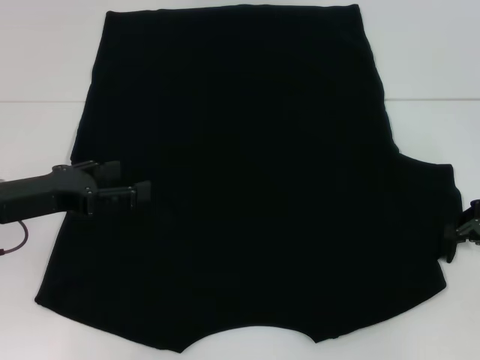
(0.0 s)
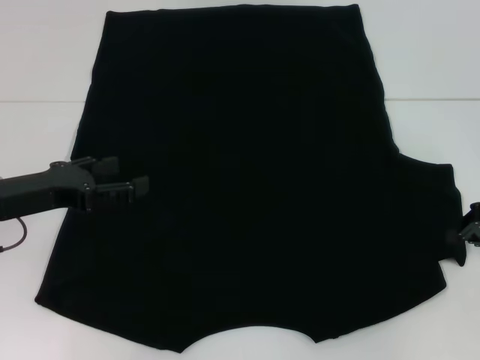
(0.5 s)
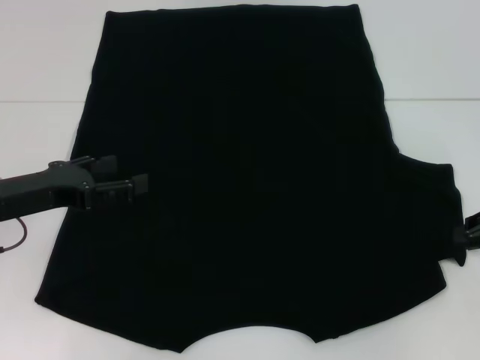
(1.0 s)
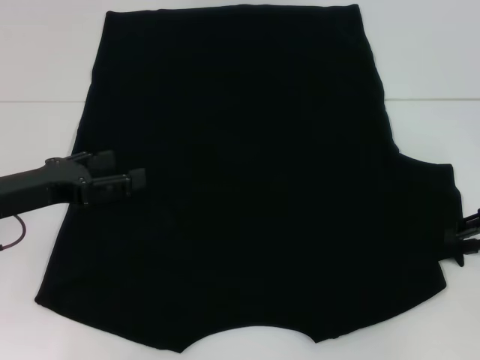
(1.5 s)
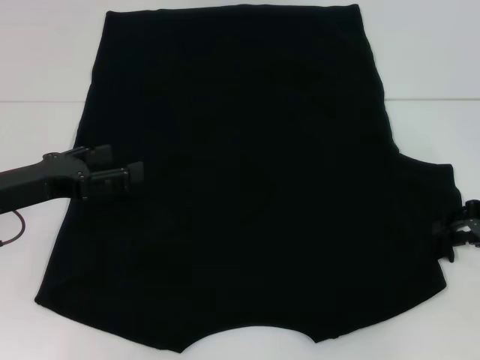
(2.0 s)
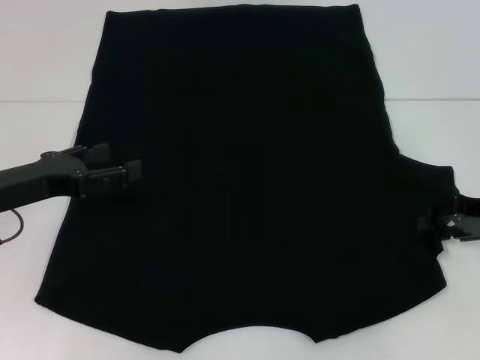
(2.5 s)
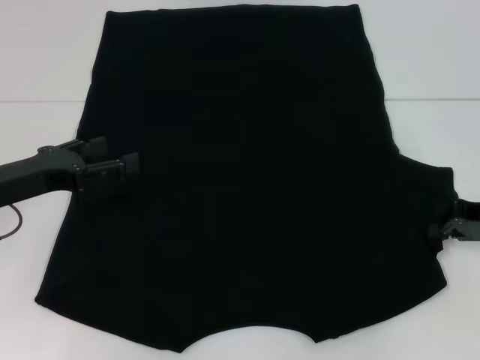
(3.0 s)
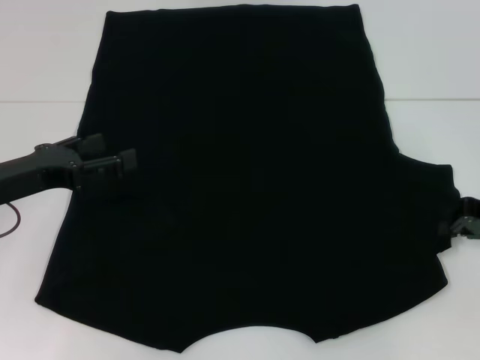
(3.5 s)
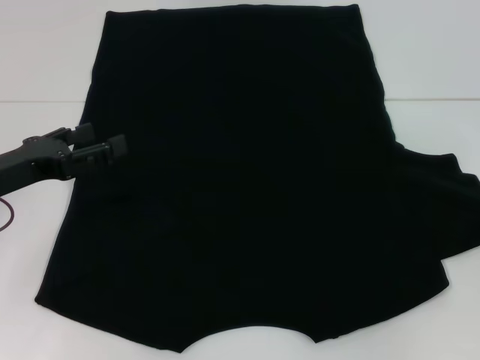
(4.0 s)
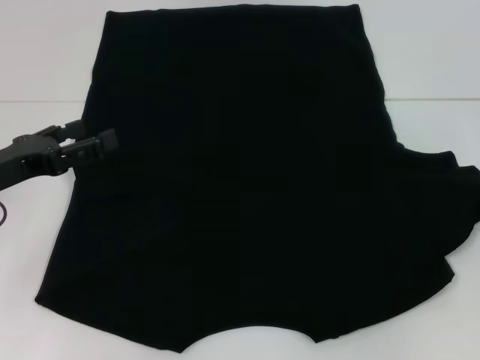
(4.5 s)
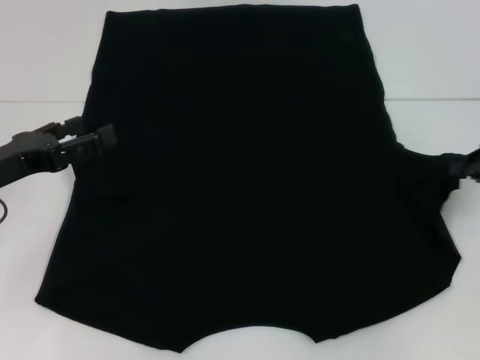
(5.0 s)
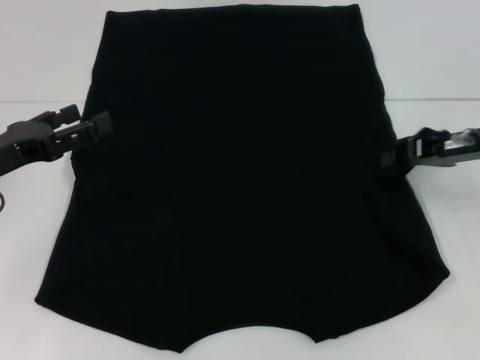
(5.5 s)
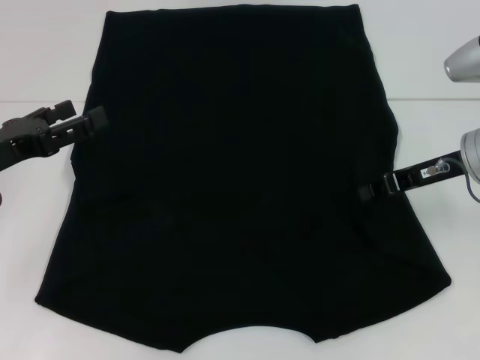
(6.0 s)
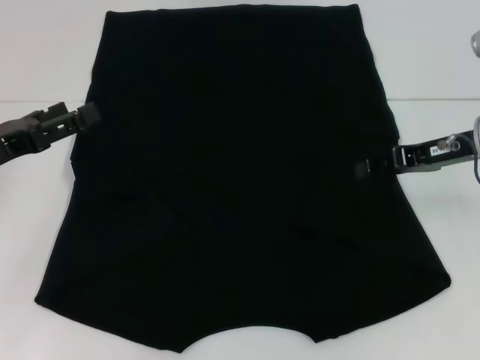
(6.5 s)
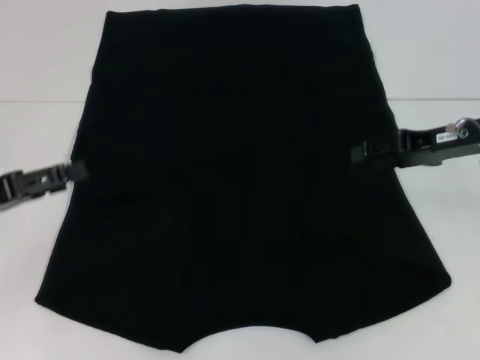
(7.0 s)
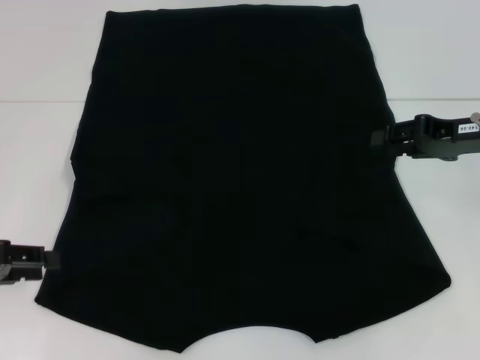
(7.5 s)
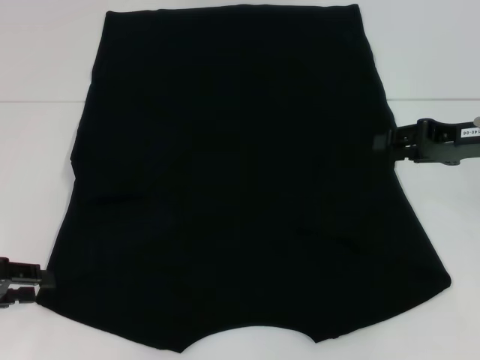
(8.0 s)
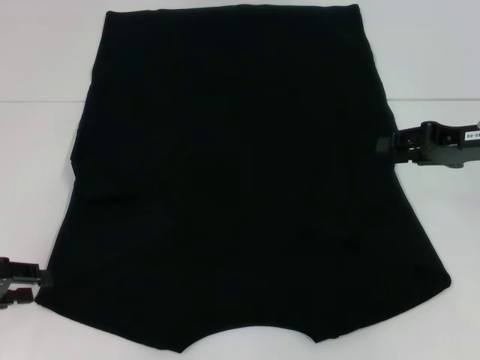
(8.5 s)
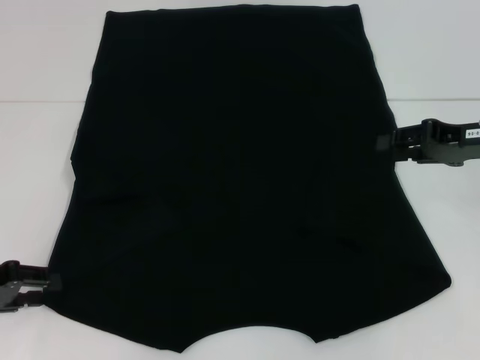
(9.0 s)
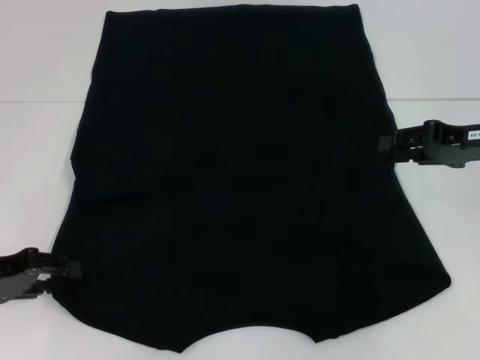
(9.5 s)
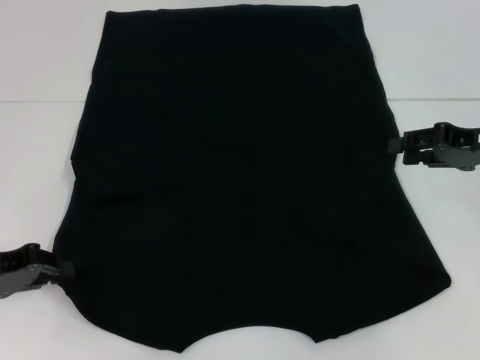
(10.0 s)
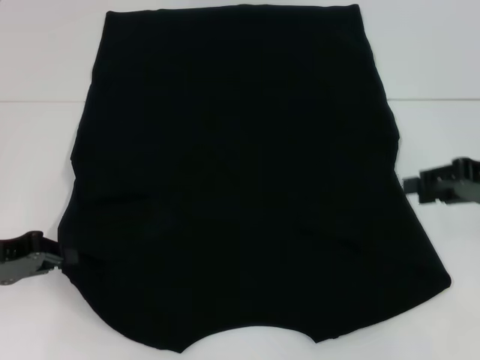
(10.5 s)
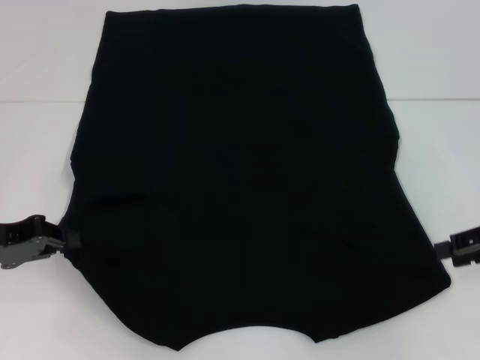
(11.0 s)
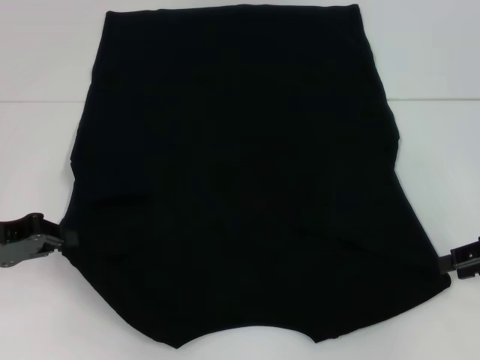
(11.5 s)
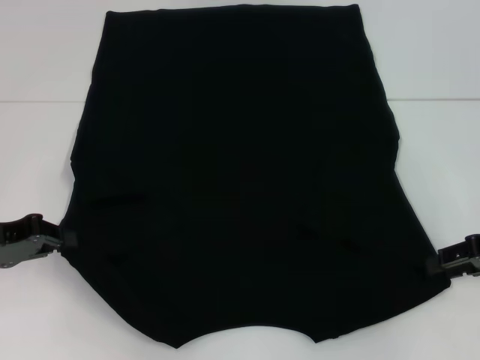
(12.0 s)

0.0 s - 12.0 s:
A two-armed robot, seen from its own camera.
Step, 0.0 s - 6.5 s: Fold the bottom right sleeve with your right hand.
Step, 7.0 s - 10.5 s: Grab the bottom left corner with your left hand.
0.0 s - 2.0 s: The grippers make only small movements.
2.0 s - 4.0 s: The right gripper closes.
4.0 s - 6.0 s: The right gripper travels to the left by about 15 cm.
6.0 s - 8.0 s: The left gripper ends up roughly 10 cm from where it was, while the right gripper opens.
8.0 s - 10.0 s: The grippers make only small movements.
10.0 s - 12.0 s: The right gripper is displaced backward by approximately 5 cm.

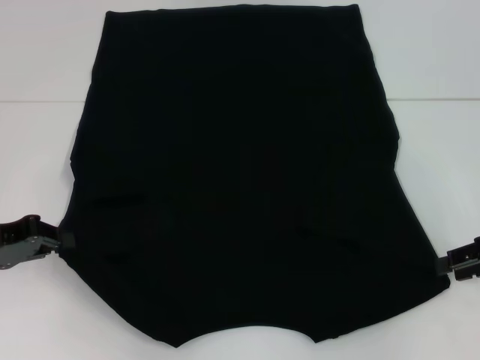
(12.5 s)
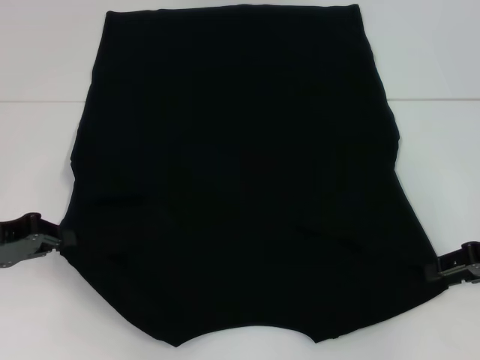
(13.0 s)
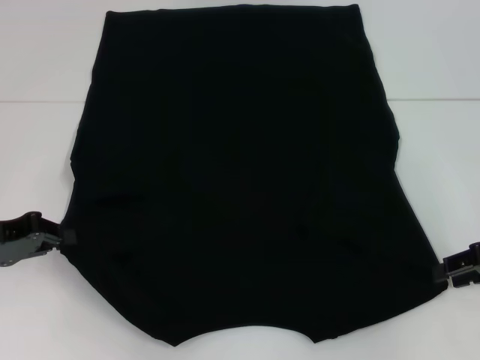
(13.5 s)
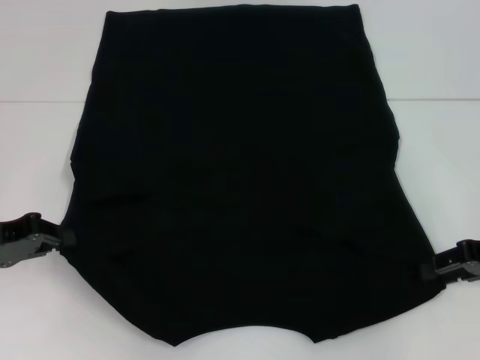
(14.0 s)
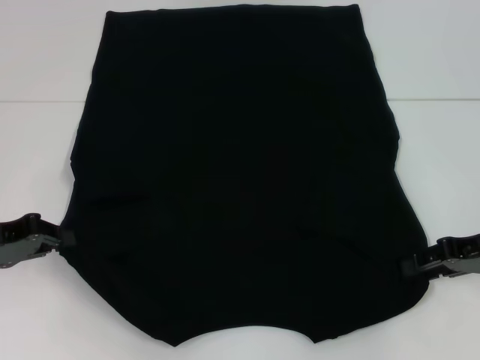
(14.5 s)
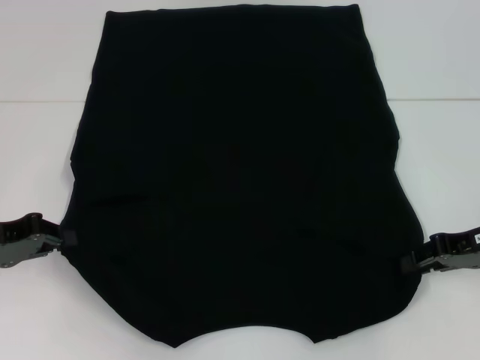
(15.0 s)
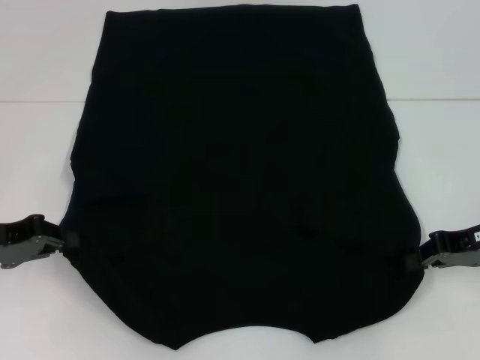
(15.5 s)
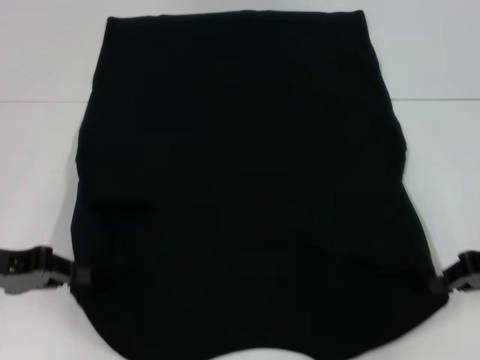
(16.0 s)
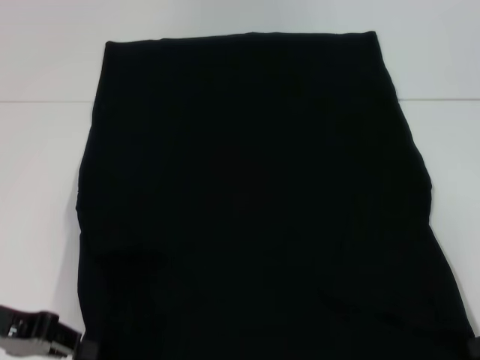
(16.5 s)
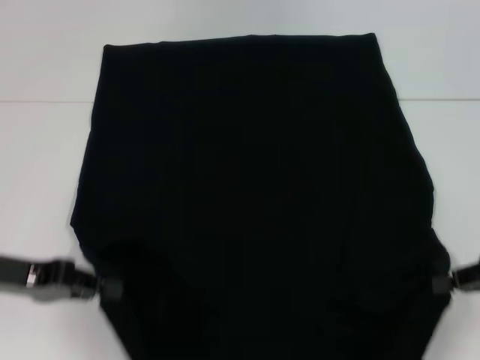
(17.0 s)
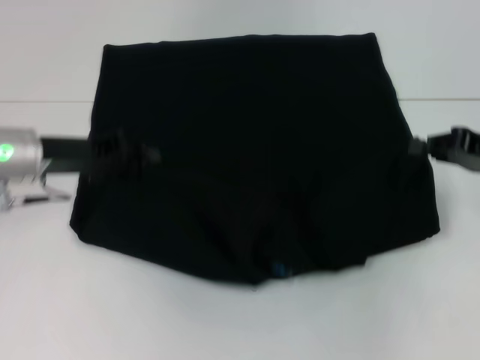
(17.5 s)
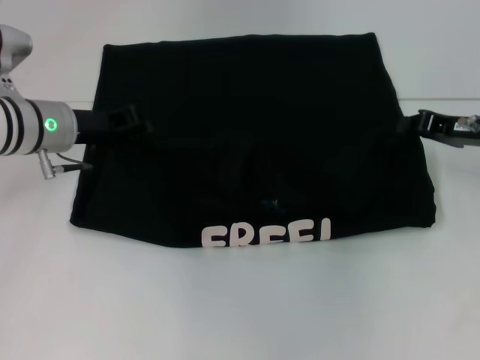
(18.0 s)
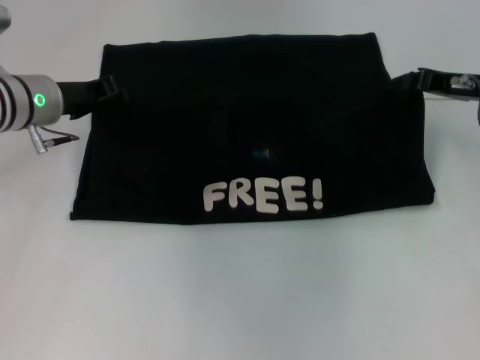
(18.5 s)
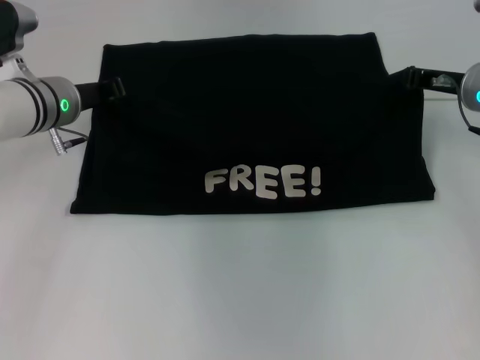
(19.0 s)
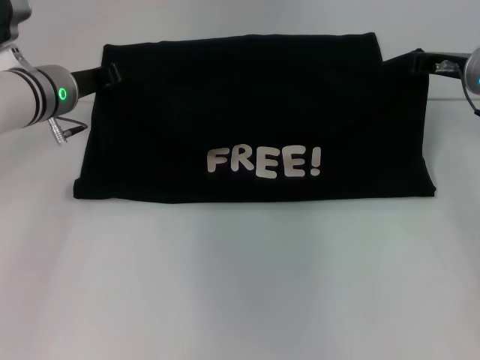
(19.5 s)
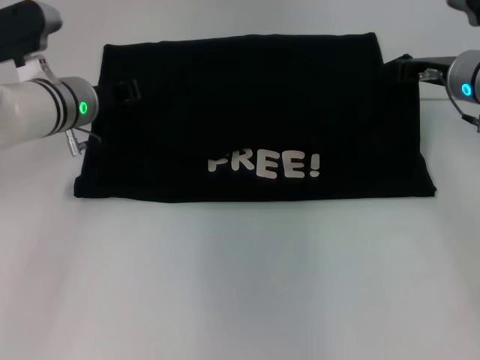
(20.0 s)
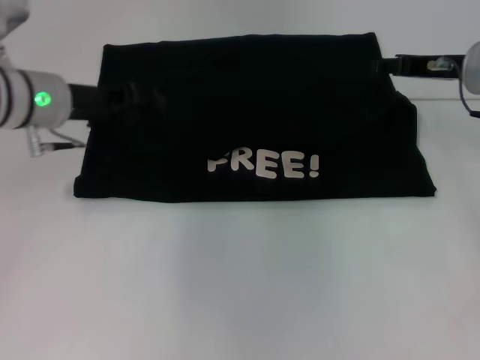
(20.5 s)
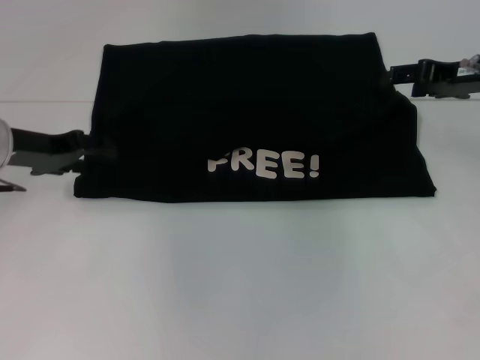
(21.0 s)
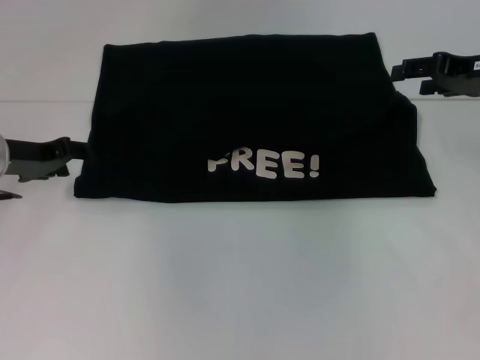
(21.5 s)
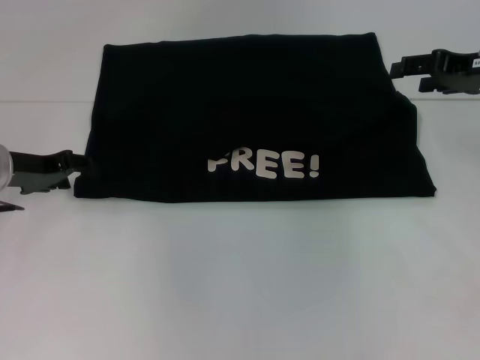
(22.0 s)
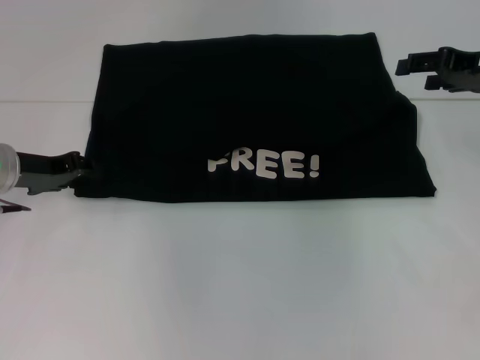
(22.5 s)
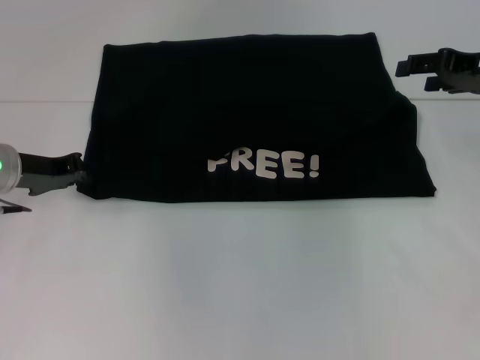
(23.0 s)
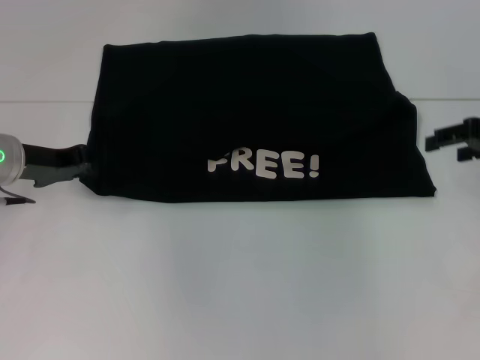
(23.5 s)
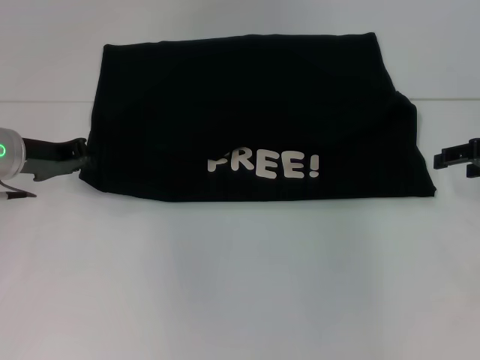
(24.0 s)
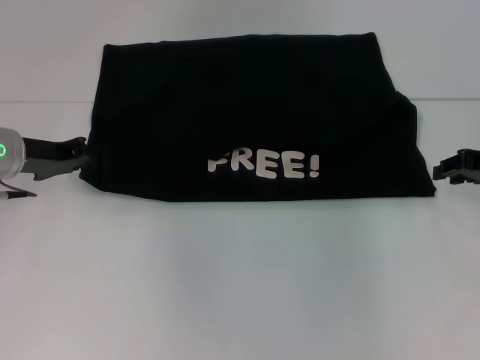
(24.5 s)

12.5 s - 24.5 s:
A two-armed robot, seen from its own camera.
Step, 12.5 s - 15.5 s: Grab the bottom right corner with your right hand.
Step, 16.0 s - 20.5 s: Fold the clothes with your left hand.
Step, 16.0 s - 20.5 s: Fold the clothes with your right hand.
12.5 s - 14.5 s: The grippers make only small movements.
14.5 s - 16.5 s: The right gripper travels backward by some 5 cm, and closes its fingers.
16.5 s - 18.5 s: The right gripper heads forward and to the left, covering roughly 20 cm. Meanwhile the left gripper moves forward, some 20 cm.
18.5 s - 20.5 s: The left gripper opens its fingers; the right gripper opens.
20.5 s - 22.5 s: The left gripper is displaced to the left and downward by roughly 10 cm. Meanwhile the right gripper shifts by about 5 cm.
22.5 s - 24.5 s: The right gripper goes approximately 5 cm downward, and closes its fingers. The left gripper closes its fingers.

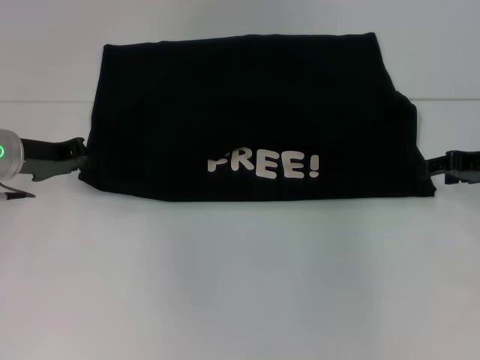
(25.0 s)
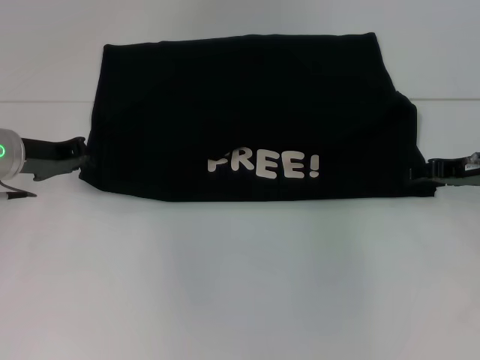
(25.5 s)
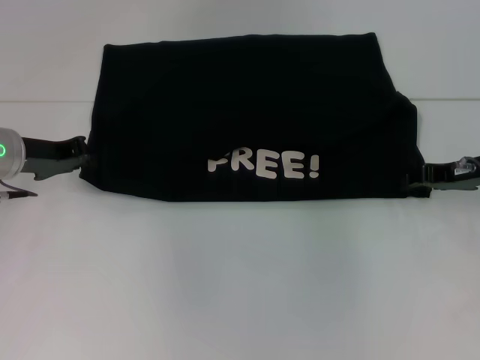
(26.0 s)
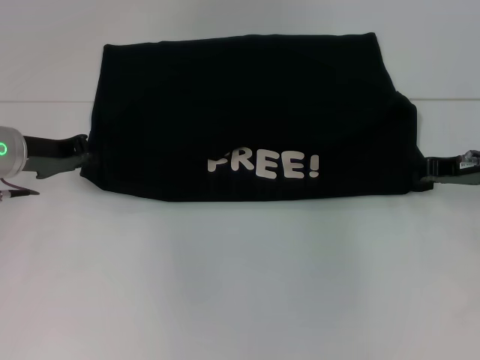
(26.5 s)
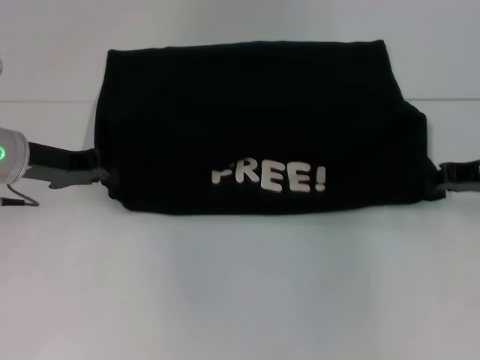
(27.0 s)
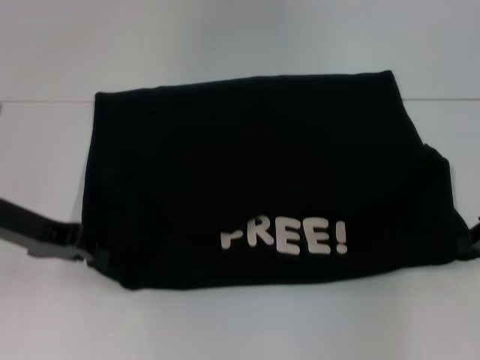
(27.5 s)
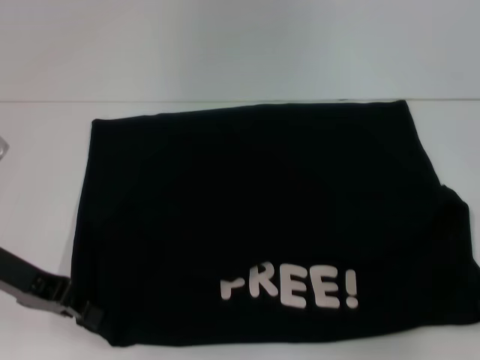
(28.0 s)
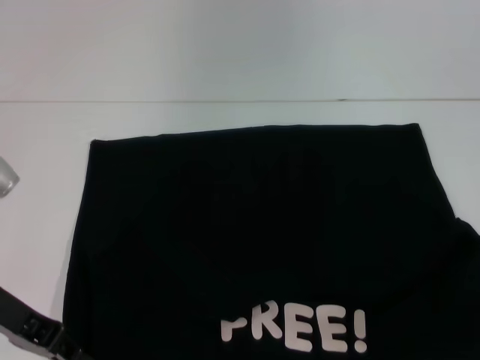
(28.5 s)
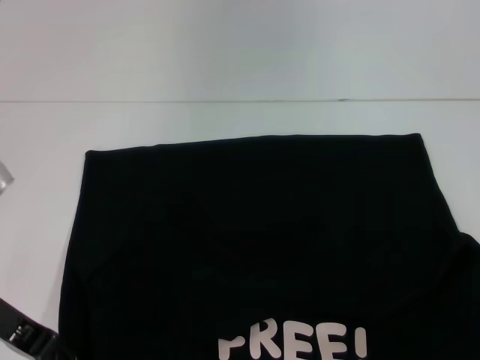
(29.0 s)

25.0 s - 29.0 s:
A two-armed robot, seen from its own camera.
Step, 25.0 s - 28.0 s: Pull the clothes with your left hand.
Step, 25.0 s - 28.0 s: Pull the clothes with your right hand.
25.0 s - 27.0 s: The right gripper closes its fingers.
27.0 s - 29.0 s: The right gripper moves backward and to the right, roughly 15 cm, while the left gripper is displaced backward by roughly 10 cm.
